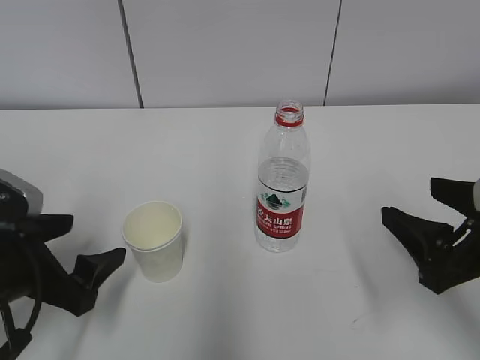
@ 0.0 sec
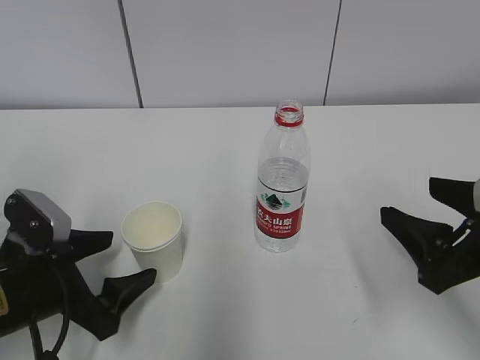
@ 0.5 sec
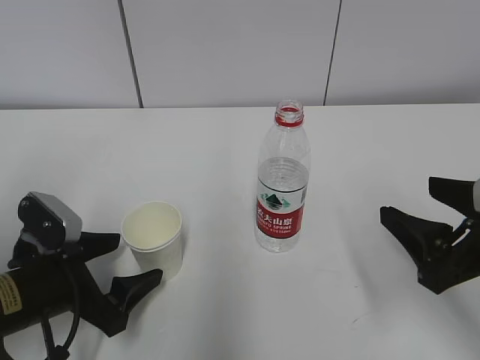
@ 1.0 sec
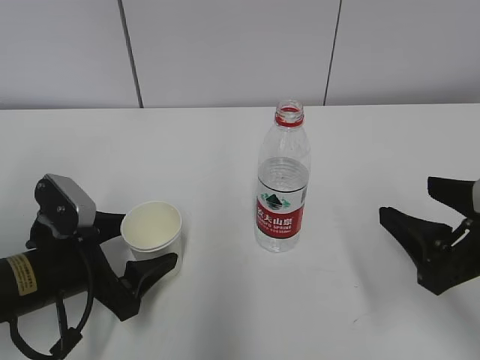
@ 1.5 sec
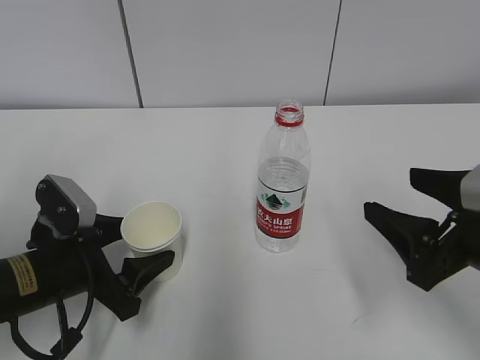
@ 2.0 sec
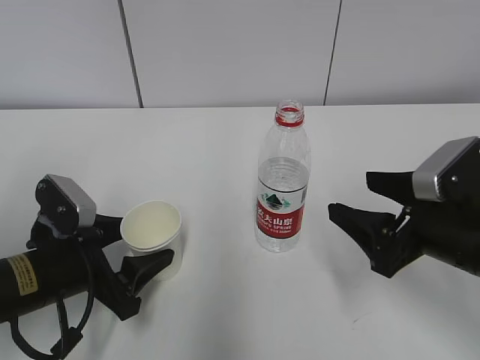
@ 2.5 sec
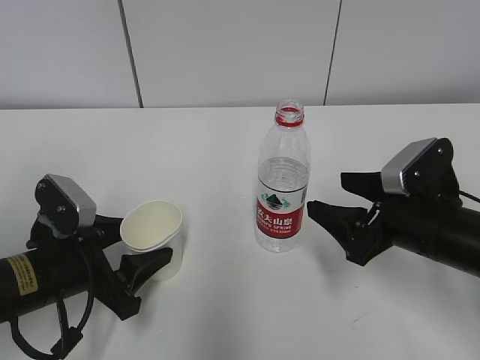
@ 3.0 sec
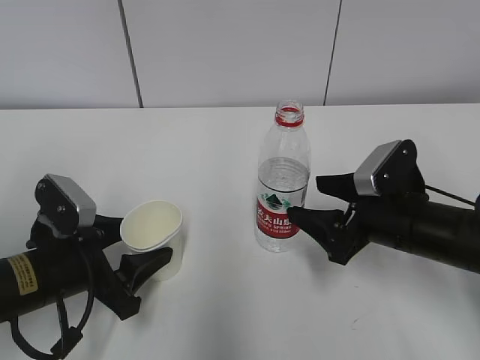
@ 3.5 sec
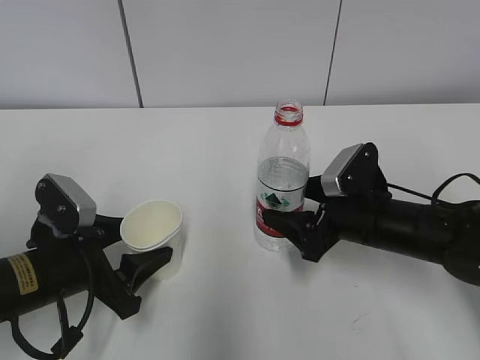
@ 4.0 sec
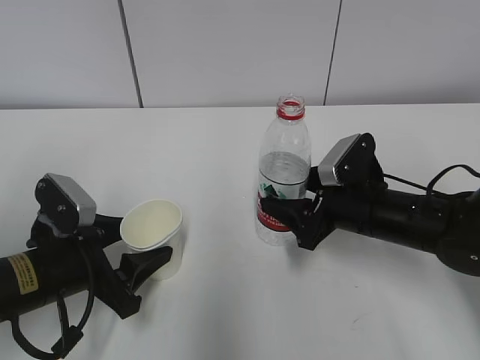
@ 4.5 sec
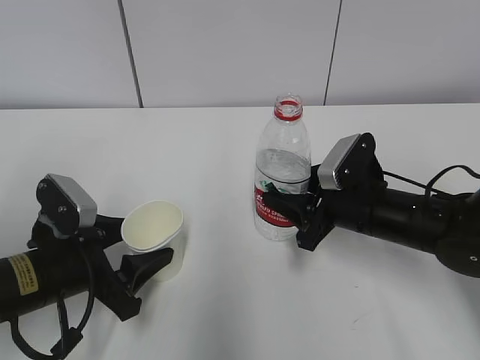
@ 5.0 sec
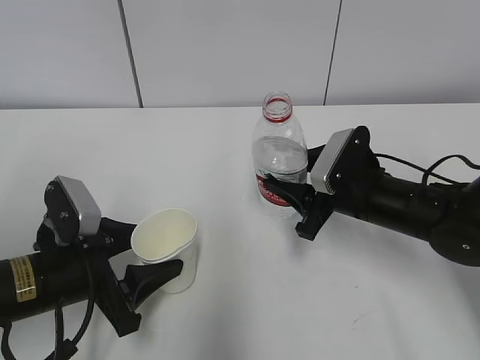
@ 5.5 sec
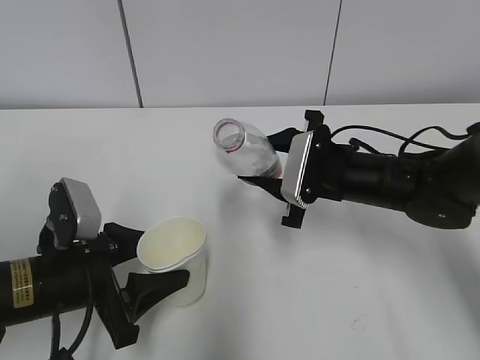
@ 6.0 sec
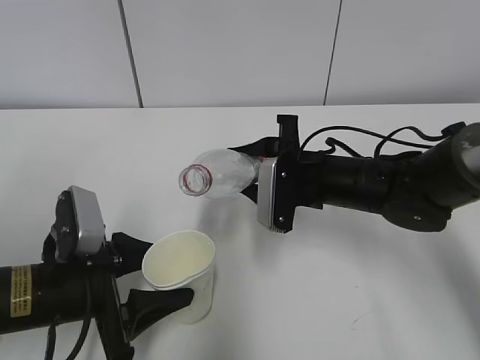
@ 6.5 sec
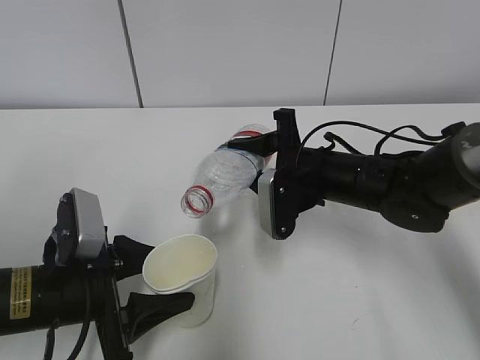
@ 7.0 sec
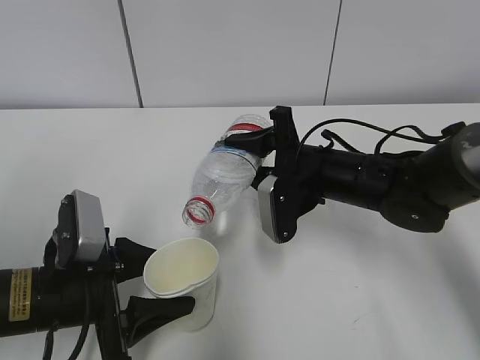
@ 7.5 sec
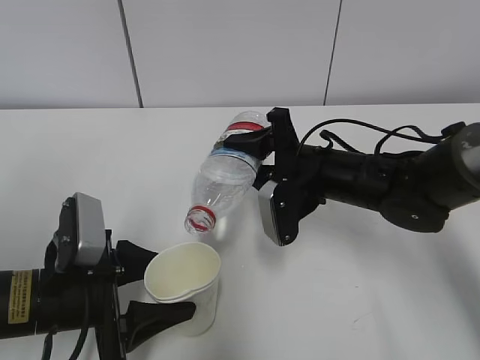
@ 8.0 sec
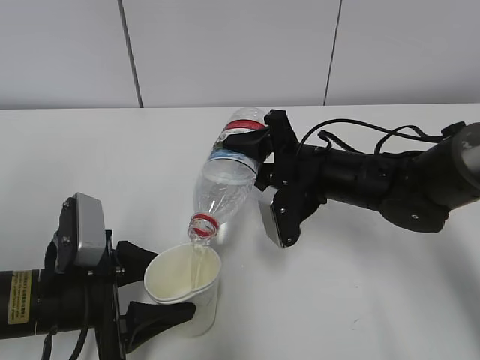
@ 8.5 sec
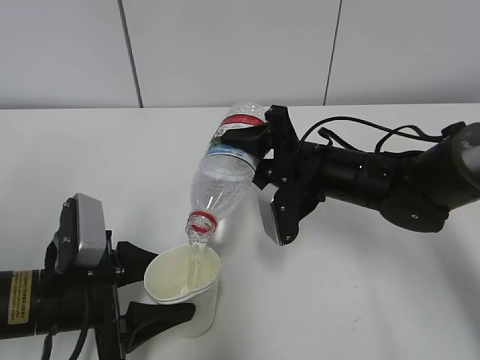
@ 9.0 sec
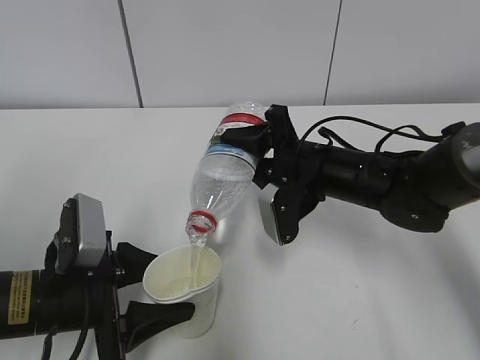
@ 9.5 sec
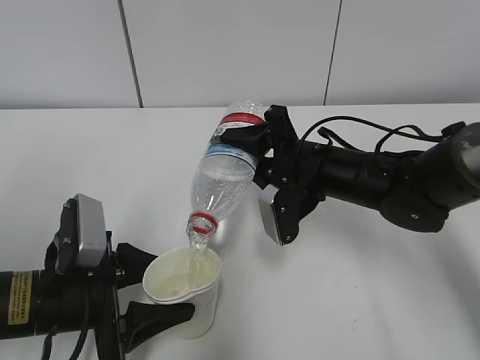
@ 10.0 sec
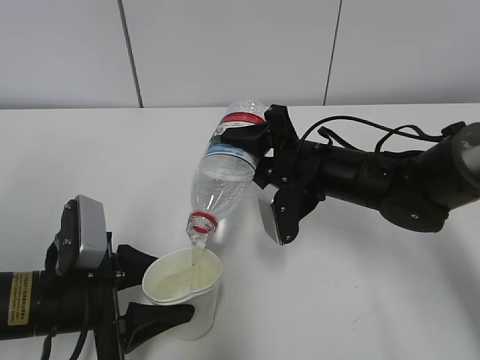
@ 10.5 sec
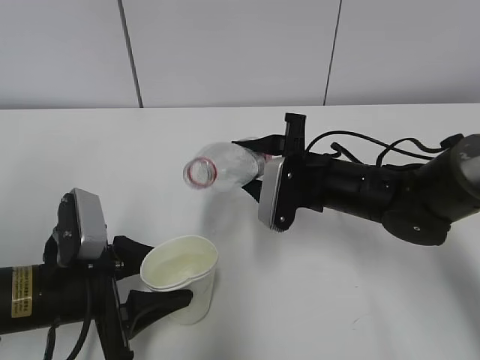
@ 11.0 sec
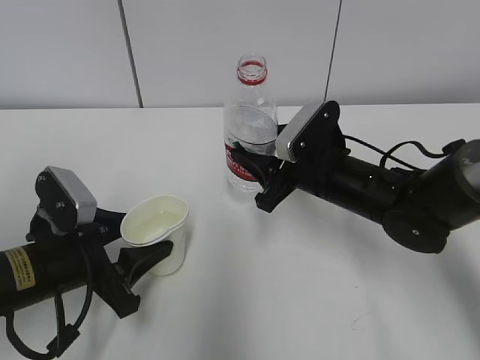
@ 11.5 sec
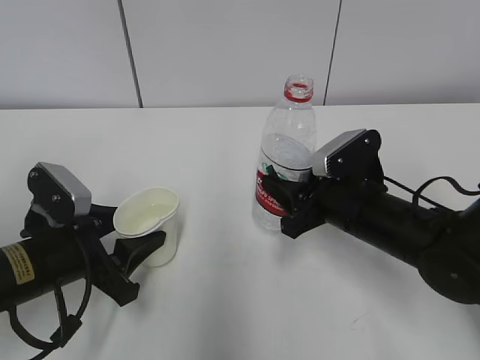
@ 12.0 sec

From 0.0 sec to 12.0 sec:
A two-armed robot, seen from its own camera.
Step, from 0.0 sec to 2.5 sec: Grab the paper cup with the left hand.
Step, from 3.5 sec to 5.5 sec: Lift the paper cup with the left hand.
Step, from 6.0 sec to 8.0 sec: Fill water with the left hand.
Step, from 6.0 sec to 8.0 sec: Pour water with the right hand.
From 0.0 sec to 2.0 sec: The left gripper ends up some 5 cm from where it was, and closes its fingers.
From 2.0 sec to 4.0 sec: The right gripper heads forward, downward and to the left, covering approximately 15 cm.
From 4.0 sec to 6.0 sec: The right gripper shifts by some 5 cm, and closes up.
From 8.0 sec to 10.0 sec: The grippers make only small movements.
From 10.0 sec to 12.0 sec: The right gripper moves approximately 5 cm.

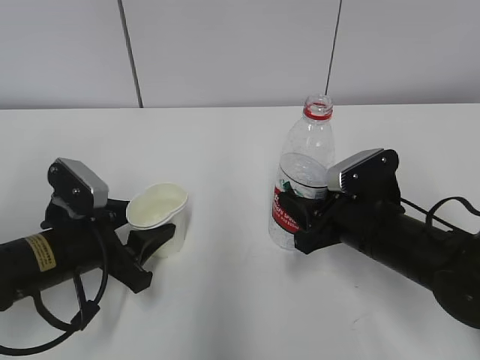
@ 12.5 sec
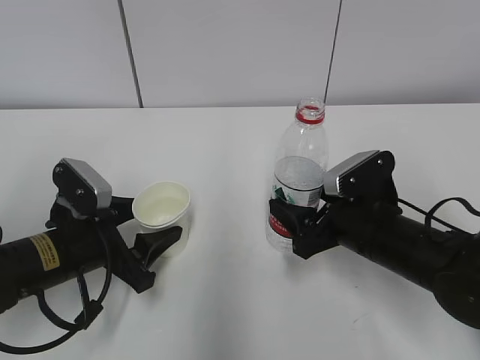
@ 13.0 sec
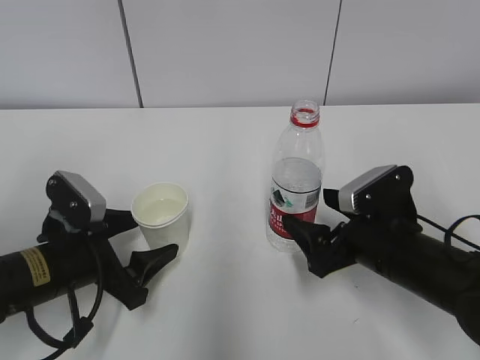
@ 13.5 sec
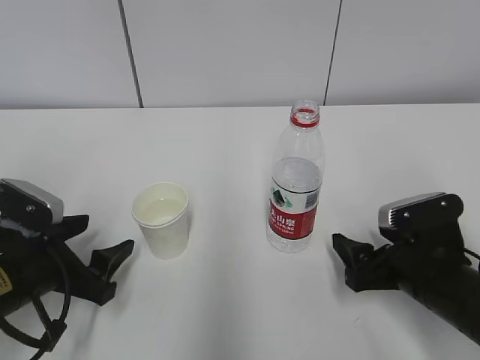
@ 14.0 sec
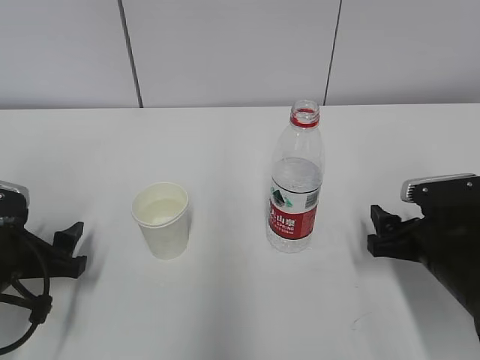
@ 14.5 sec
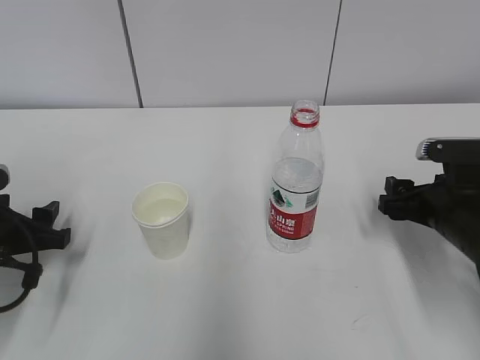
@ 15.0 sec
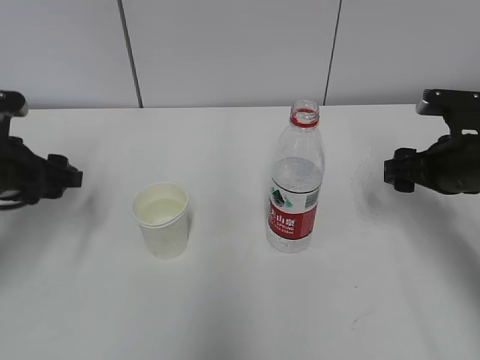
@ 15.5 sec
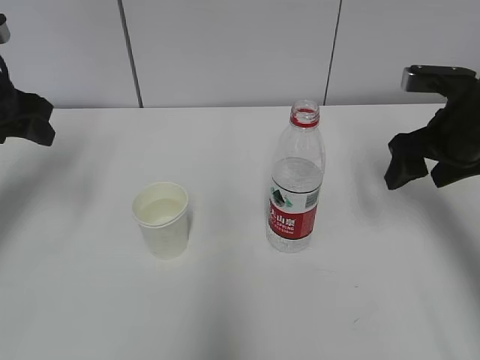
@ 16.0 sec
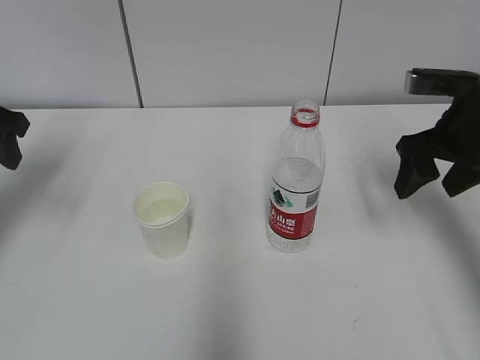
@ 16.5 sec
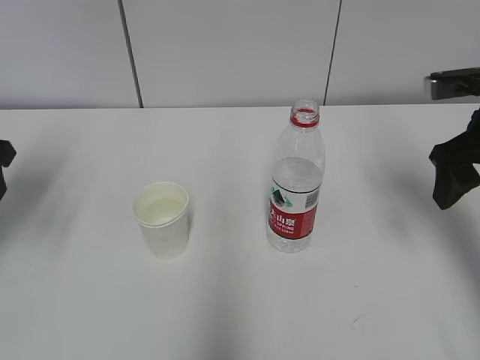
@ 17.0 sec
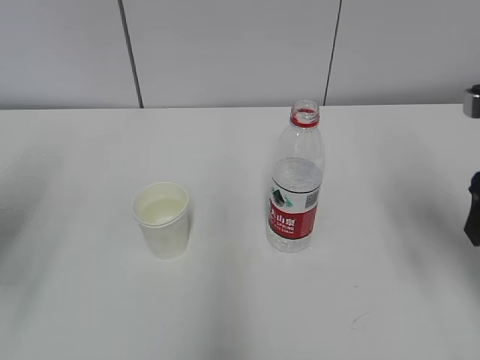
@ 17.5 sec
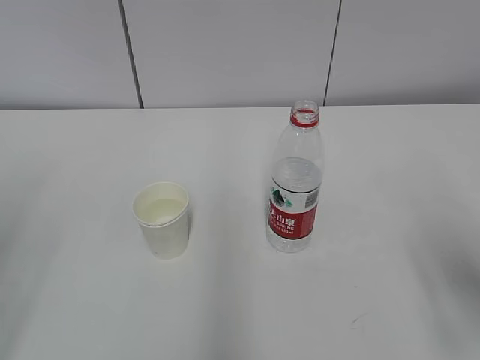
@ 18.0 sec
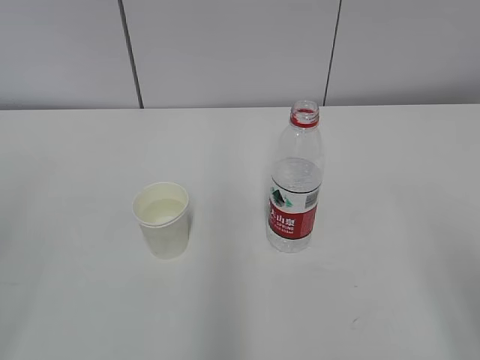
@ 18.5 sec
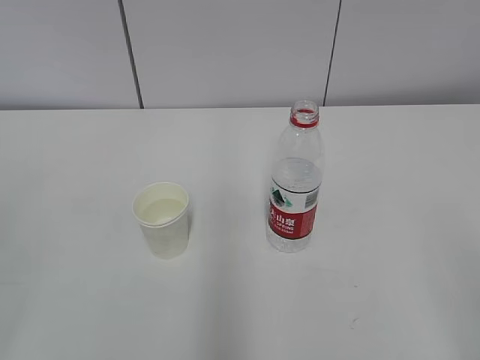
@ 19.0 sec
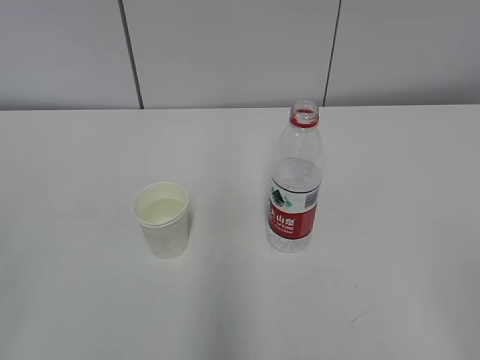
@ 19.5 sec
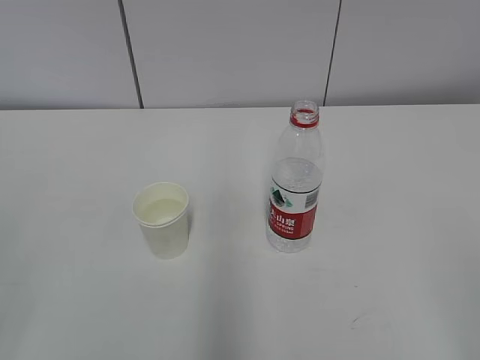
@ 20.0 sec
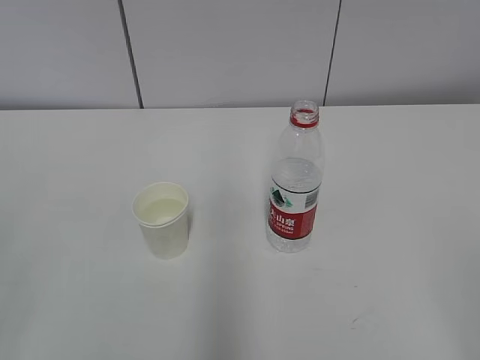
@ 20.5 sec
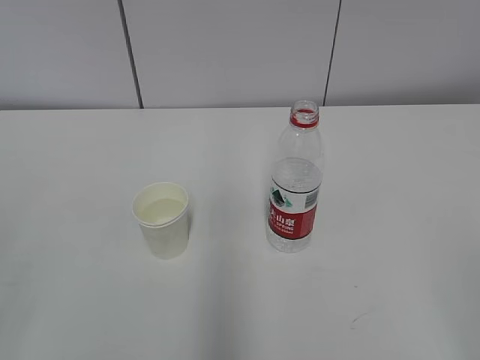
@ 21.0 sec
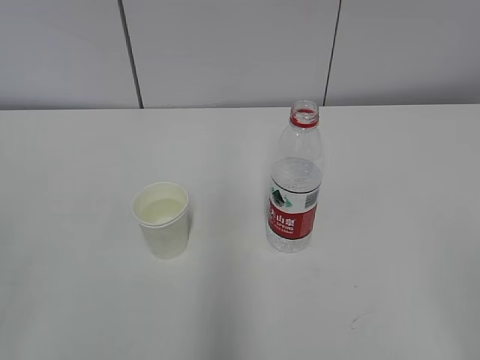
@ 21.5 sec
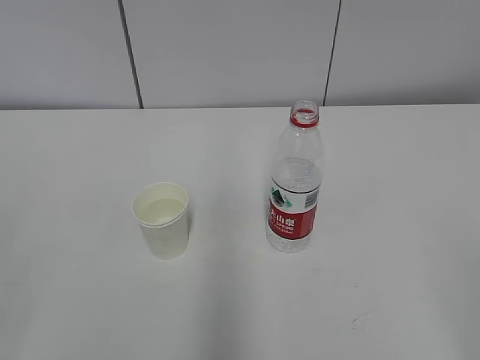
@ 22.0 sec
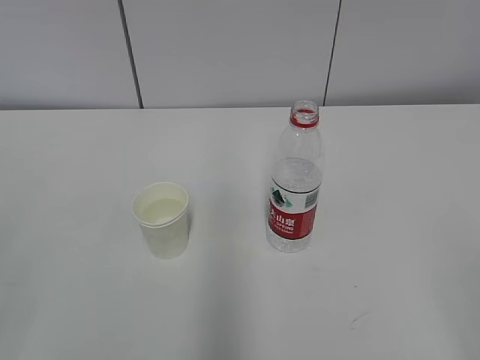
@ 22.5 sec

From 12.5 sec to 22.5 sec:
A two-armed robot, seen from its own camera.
From 12.5 sec to 14.5 sec: The left gripper moves to the left, about 5 cm, and opens up. The right gripper goes some 5 cm to the right, and opens up.
From 14.5 sec to 16.5 sec: Both grippers travel together upward and forward, approximately 20 cm.
From 16.5 sec to 18.5 sec: Both grippers travel together backward, about 25 cm.
From 20.5 sec to 22.5 sec: Both grippers stay put.
